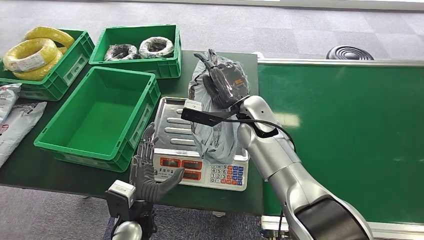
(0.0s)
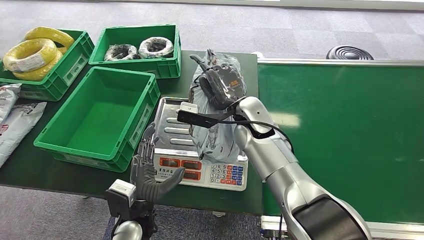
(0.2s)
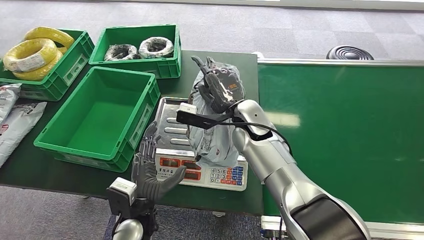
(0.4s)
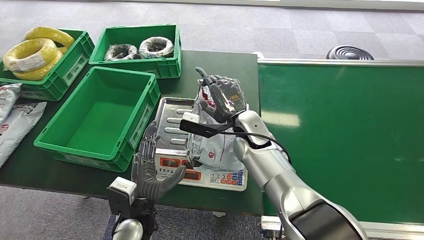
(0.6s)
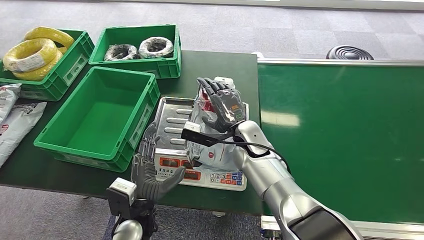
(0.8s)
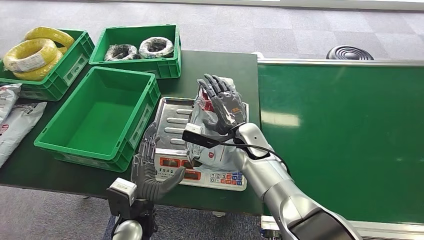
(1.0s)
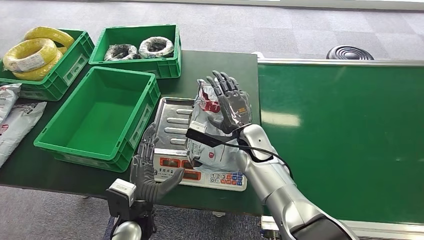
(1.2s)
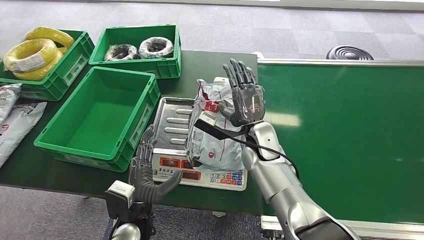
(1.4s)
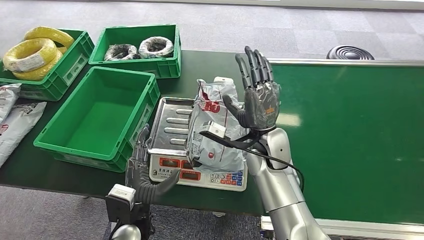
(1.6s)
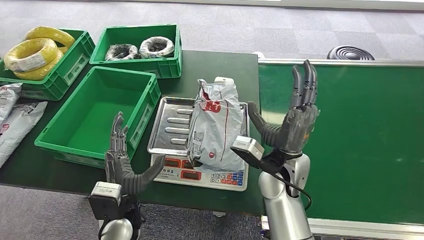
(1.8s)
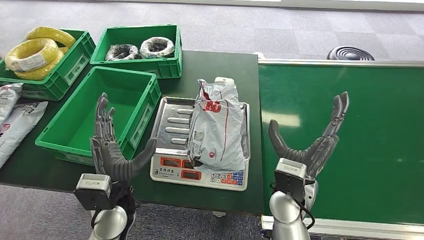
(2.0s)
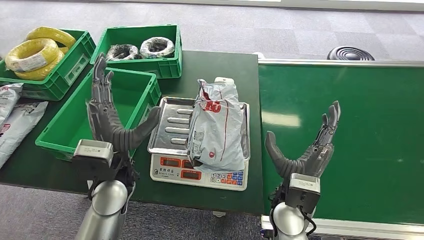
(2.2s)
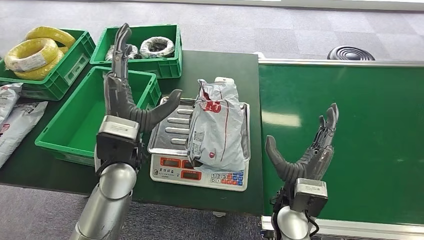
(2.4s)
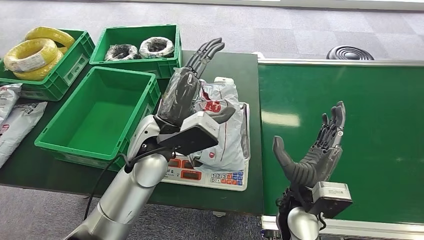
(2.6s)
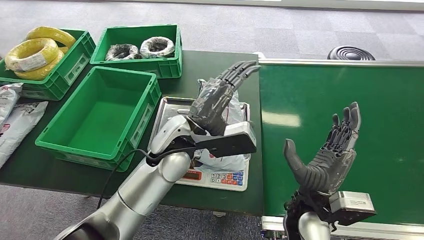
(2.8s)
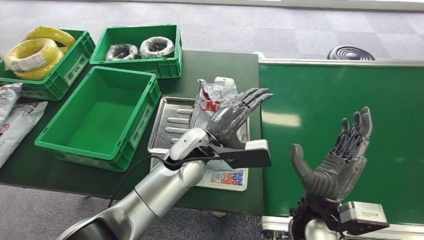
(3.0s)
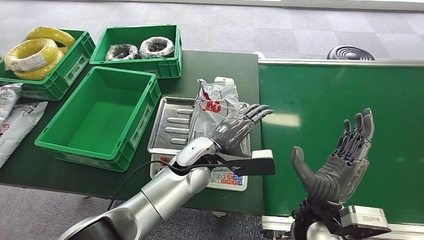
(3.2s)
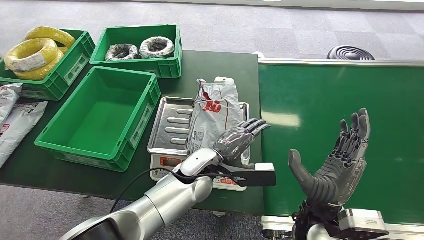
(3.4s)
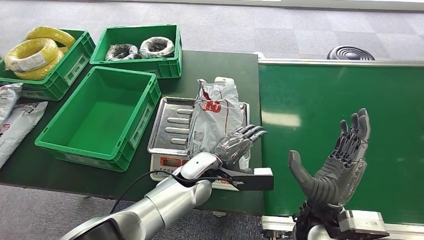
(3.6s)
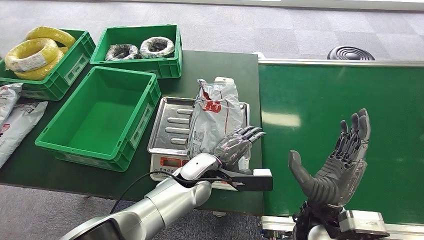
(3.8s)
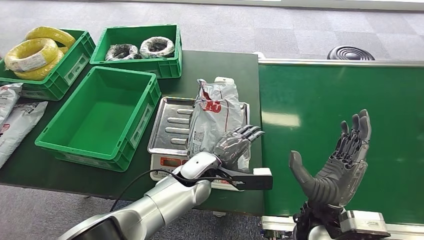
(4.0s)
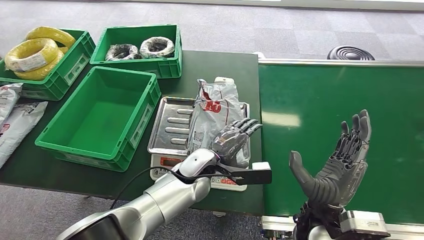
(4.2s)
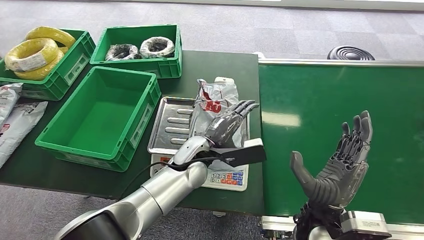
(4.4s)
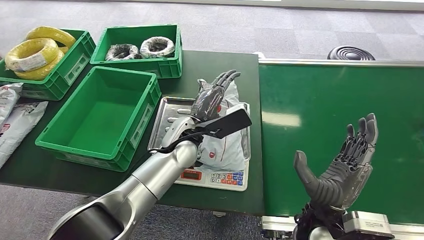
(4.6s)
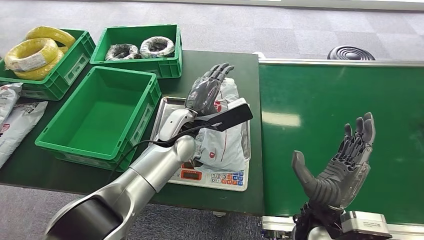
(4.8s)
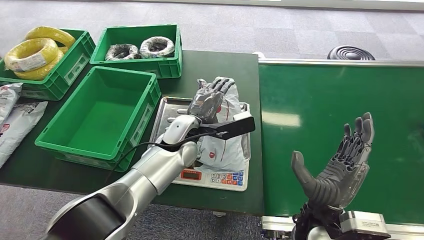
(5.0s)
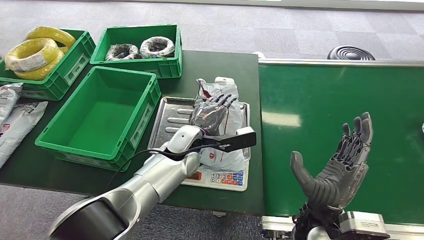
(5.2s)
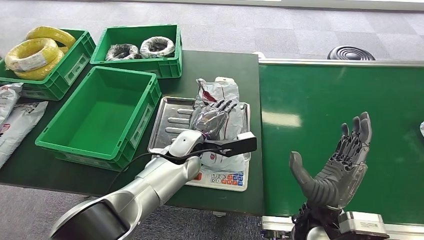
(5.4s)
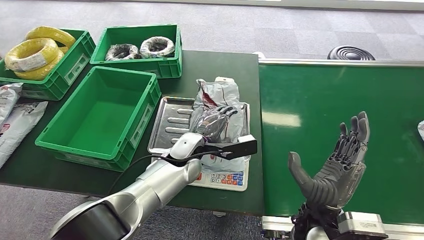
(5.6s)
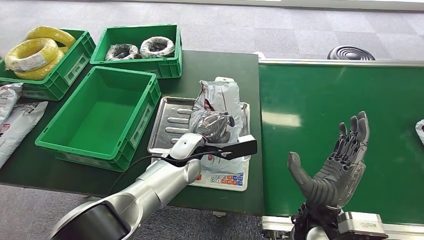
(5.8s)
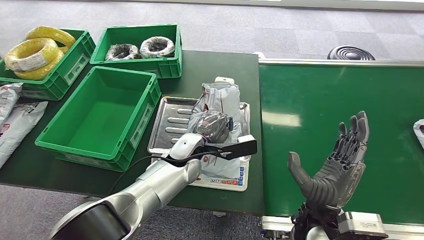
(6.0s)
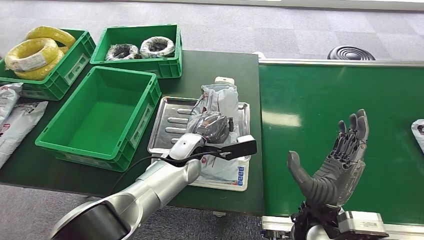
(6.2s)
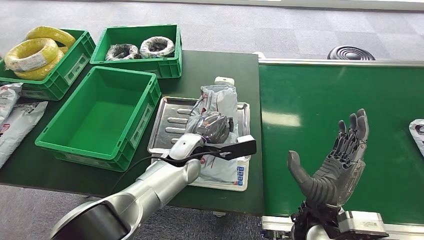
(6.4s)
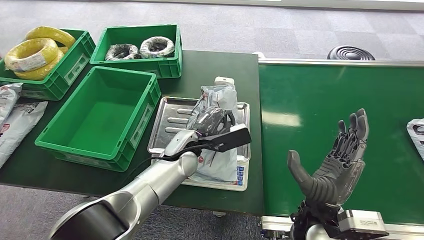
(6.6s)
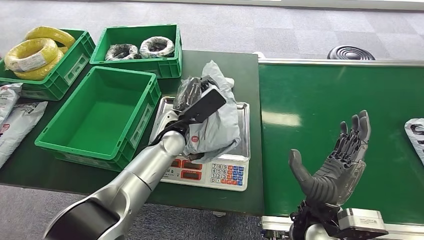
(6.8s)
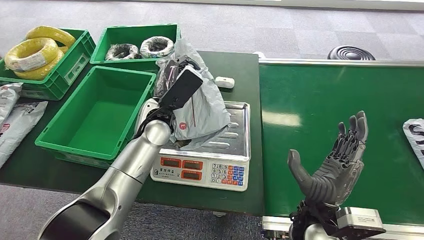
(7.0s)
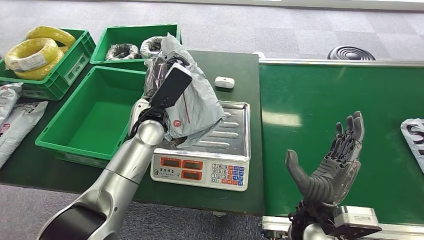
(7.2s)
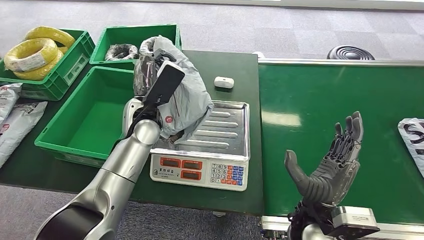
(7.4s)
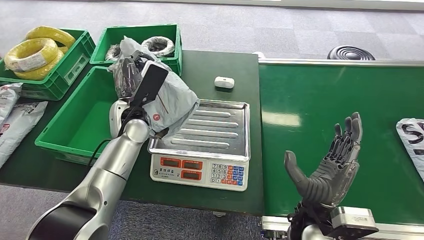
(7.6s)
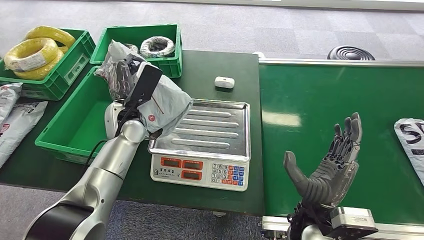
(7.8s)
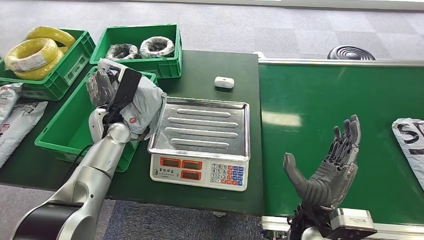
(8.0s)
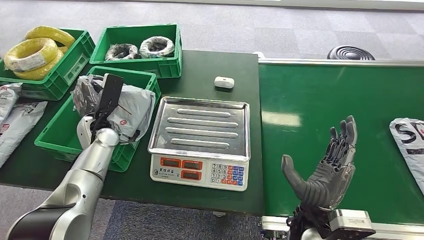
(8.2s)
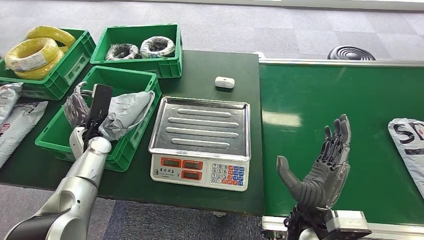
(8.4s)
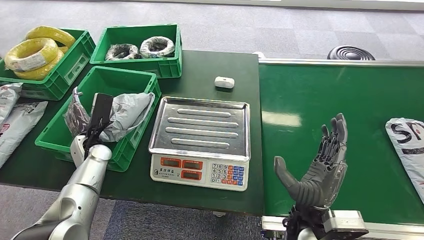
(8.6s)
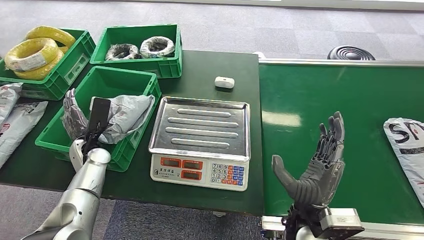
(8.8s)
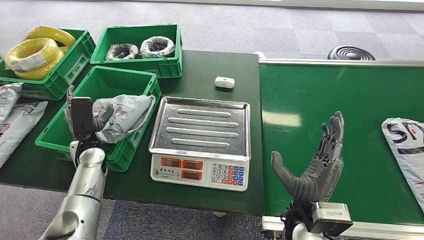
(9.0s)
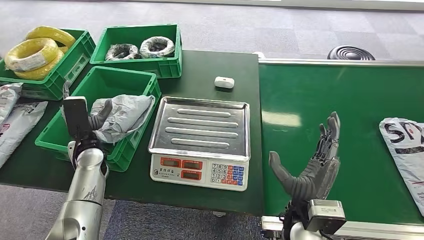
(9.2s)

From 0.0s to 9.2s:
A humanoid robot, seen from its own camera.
Step, from 0.0s to 1.0s: Place the package onto the inbound machine.
Step, from 1.2s to 7.2s: Pick up the package from the inbound machine.
Step, from 7.4s to 9.0s: Place the package into the parcel locker.
From 0.0s to 1.6s: The right hand shifts about 5 cm backward.
From 3.0s to 4.6s: The left hand moves approximately 10 cm downward and comes back.
From 4.6s to 6.2s: The left hand shifts roughly 5 cm downward.
From 7.6s to 9.2s: The left hand shifts roughly 15 cm to the left and downward.
